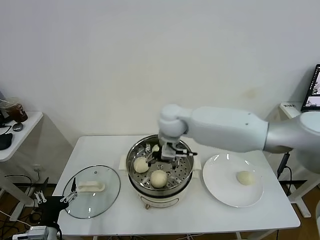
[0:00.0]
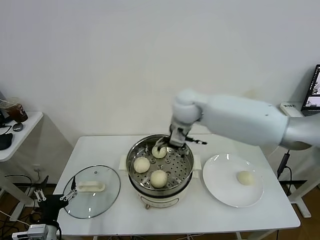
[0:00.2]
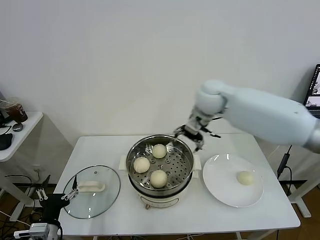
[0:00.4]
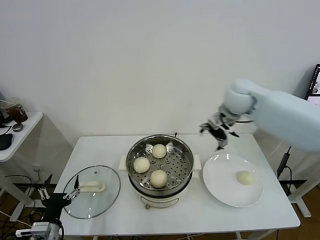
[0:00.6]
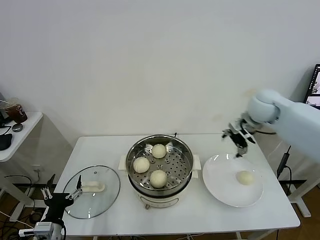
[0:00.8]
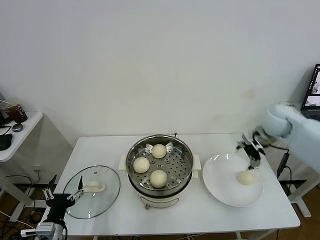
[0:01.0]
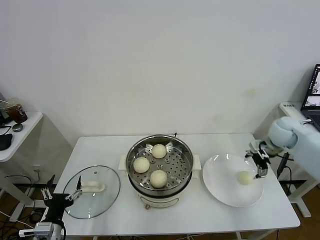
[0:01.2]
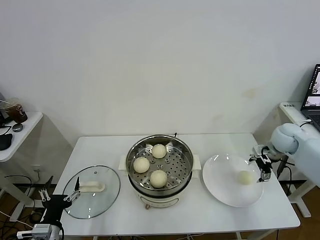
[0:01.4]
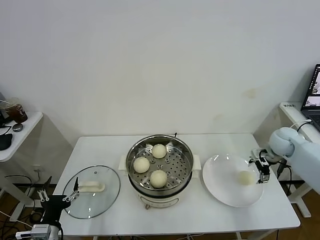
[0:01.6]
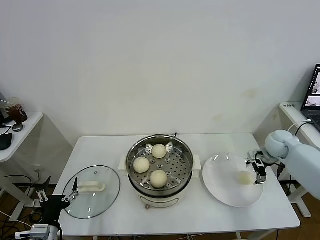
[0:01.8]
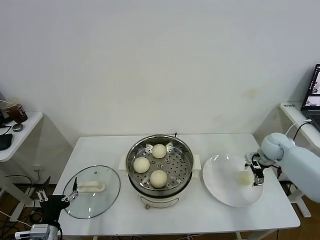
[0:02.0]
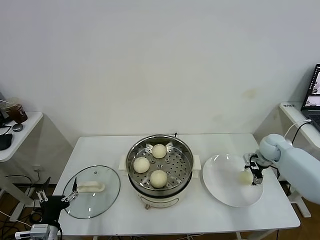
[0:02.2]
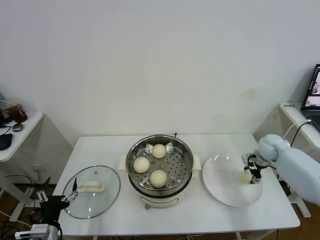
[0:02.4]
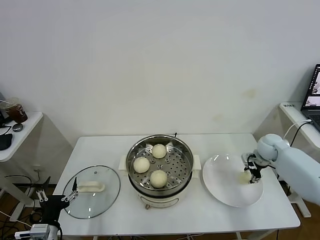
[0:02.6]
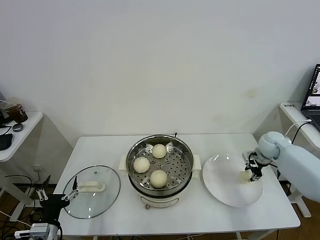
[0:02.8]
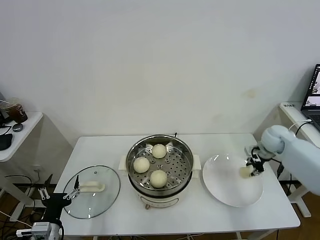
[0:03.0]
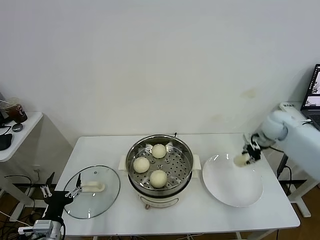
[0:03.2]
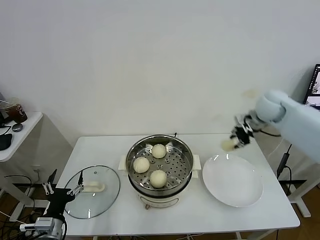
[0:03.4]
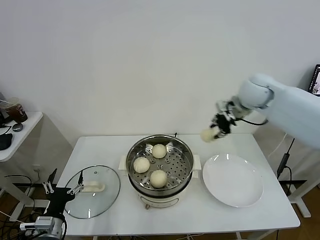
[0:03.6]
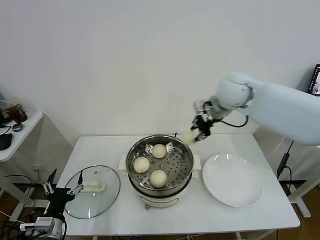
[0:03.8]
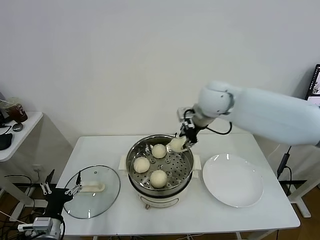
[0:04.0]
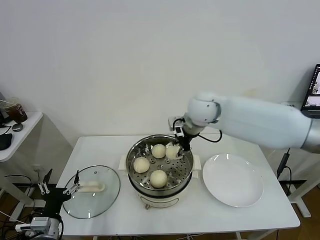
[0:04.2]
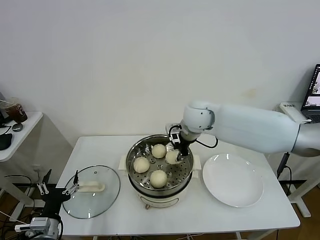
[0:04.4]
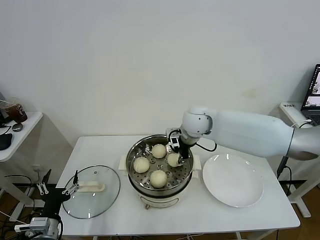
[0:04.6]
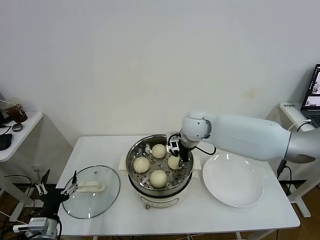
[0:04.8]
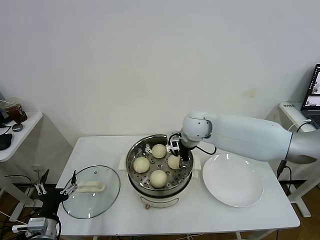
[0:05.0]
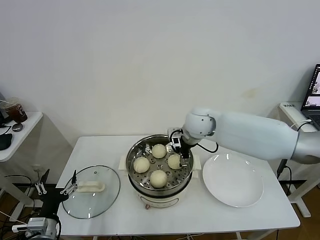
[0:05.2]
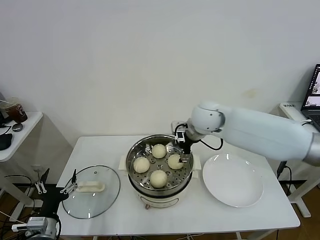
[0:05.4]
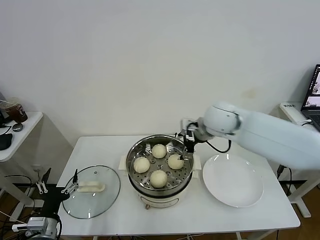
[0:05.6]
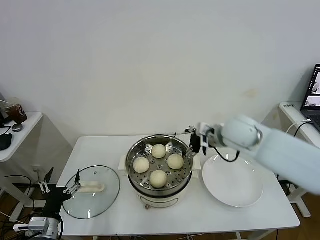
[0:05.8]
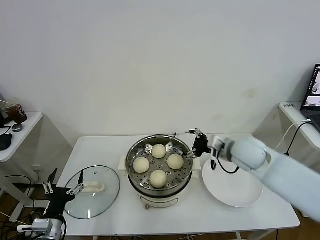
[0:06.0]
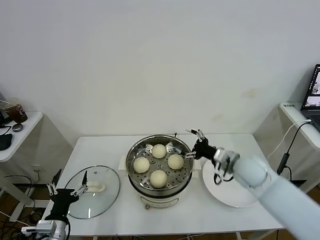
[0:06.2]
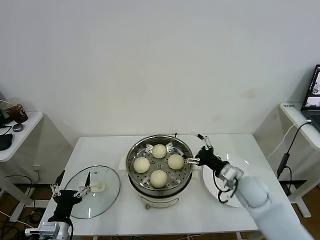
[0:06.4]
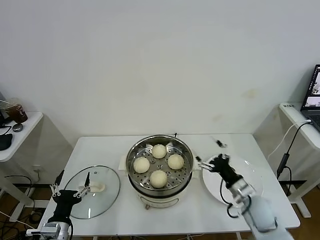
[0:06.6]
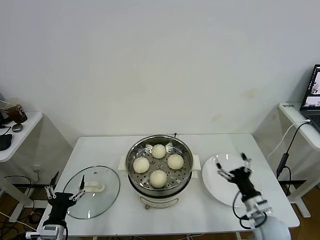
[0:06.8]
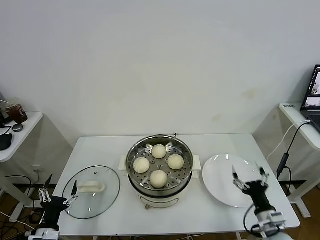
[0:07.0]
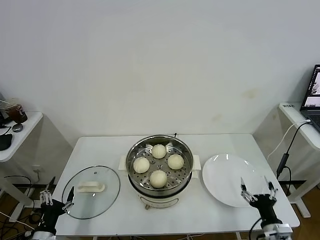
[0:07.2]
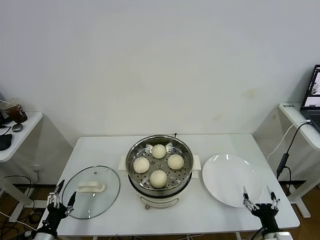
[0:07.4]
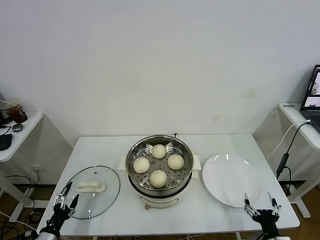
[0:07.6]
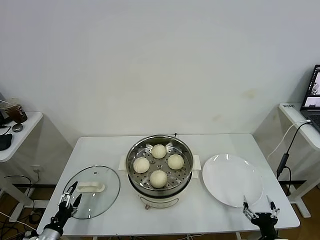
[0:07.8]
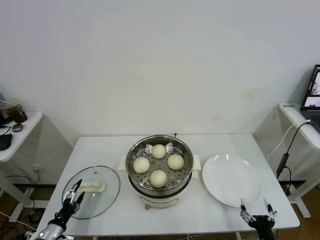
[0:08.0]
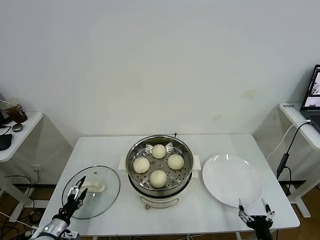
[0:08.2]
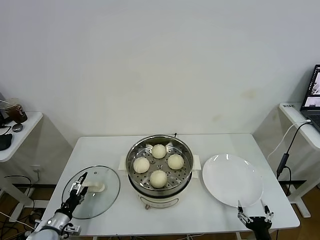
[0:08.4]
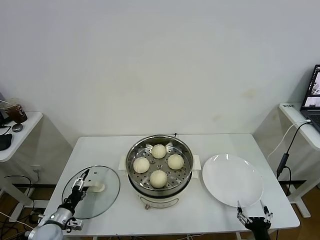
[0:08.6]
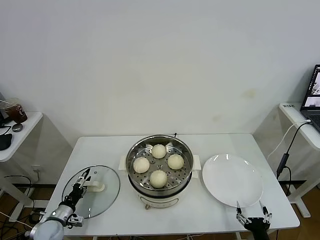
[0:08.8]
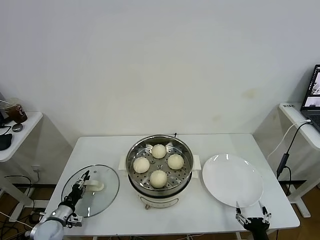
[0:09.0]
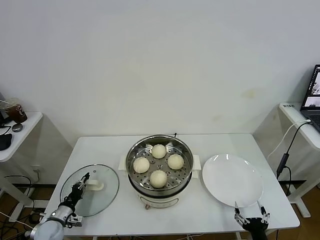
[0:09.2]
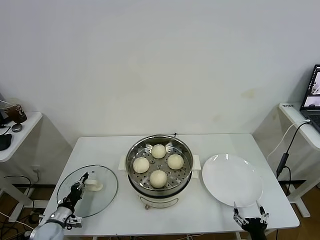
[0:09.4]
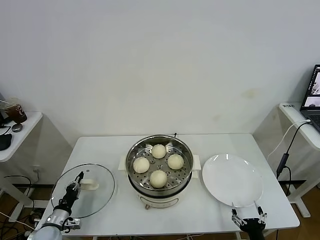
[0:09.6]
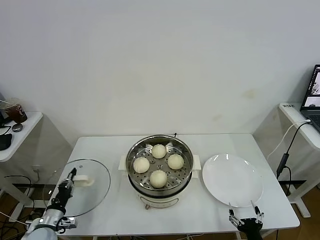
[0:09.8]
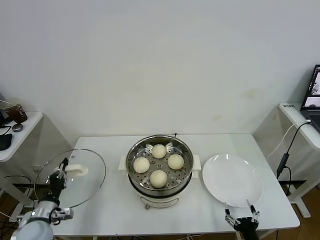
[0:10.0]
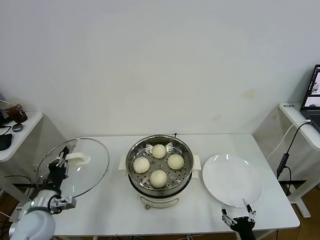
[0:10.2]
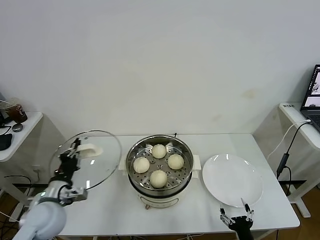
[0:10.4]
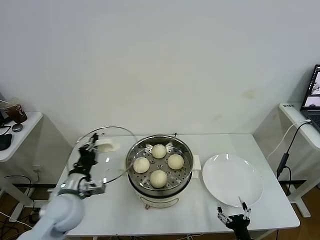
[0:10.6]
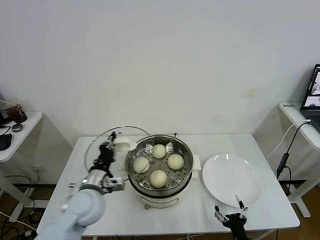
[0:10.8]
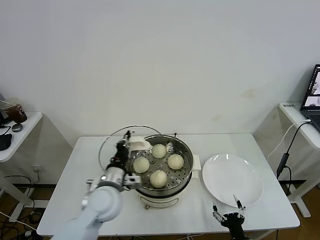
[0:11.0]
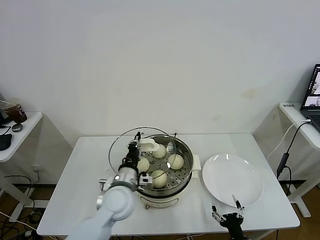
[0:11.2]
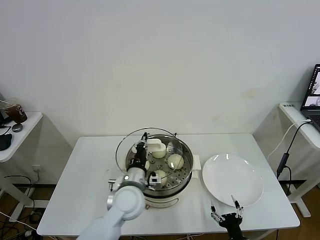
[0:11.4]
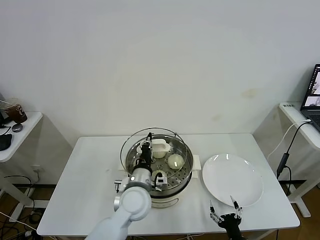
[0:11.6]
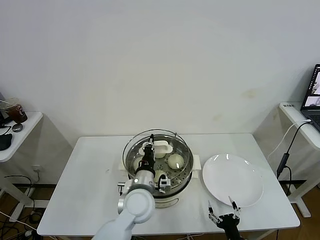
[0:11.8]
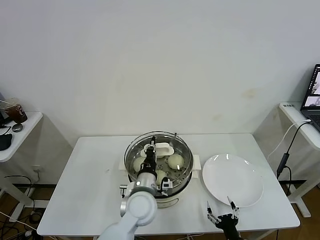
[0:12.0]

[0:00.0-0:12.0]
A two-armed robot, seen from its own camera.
Task of the whole recording: take steamed baozi put them in steamer.
Step, 0:00.2 to 0:02.6: Grasp the baozi in the plate with right gripper.
Step, 0:02.8 to 0:05.4: Place the baozi on the steamer with right gripper.
Step, 0:05.6 to 0:09.4: Grasp the pot lid with left gripper.
0:00.0 to 0:01.6: The right gripper goes about 40 cm to the right.
0:01.6 to 0:03.0: The right gripper closes its fingers.
0:03.0 to 0:04.4: The right gripper is displaced to the left and upward by approximately 35 cm.
0:04.4 to 0:06.0: The right gripper travels to the right, backward and downward by roughly 15 cm, and opens up.
0:06.0 to 0:07.6: The right gripper shifts about 35 cm backward and downward, while the left gripper travels downward and to the left by approximately 10 cm.
0:07.6 to 0:09.0: The left gripper heads forward, covering about 10 cm, and closes its fingers.
0:09.0 to 0:10.4: The left gripper moves upward and to the right, about 20 cm, and closes.
0:10.4 to 0:12.0: The left gripper shifts approximately 25 cm to the right.

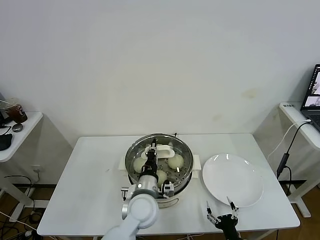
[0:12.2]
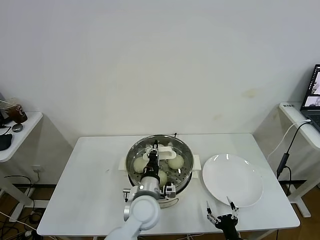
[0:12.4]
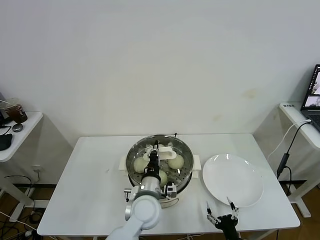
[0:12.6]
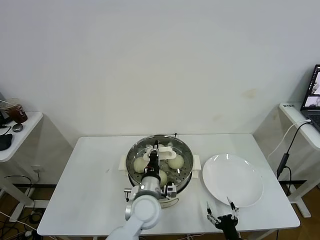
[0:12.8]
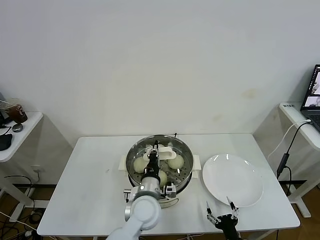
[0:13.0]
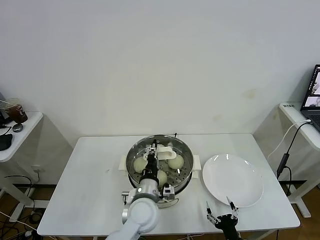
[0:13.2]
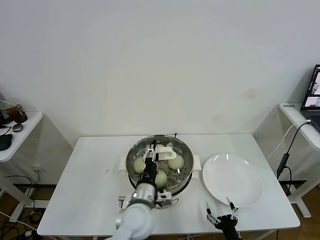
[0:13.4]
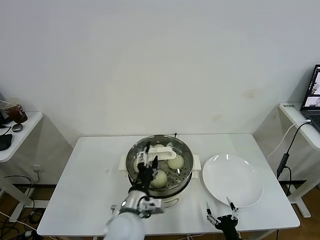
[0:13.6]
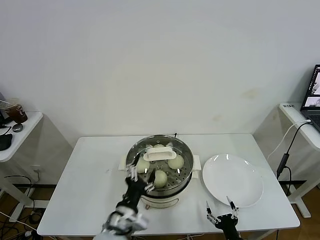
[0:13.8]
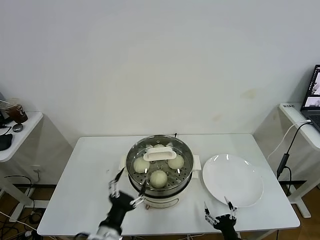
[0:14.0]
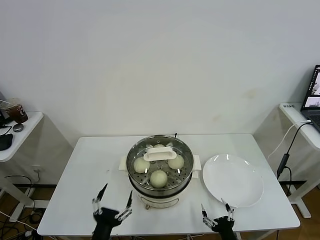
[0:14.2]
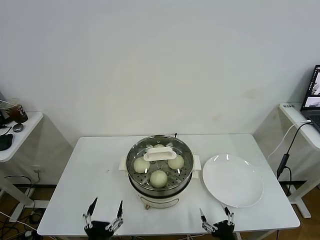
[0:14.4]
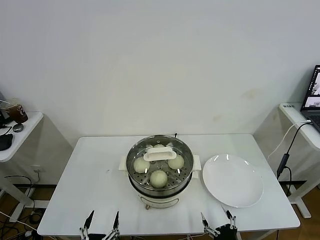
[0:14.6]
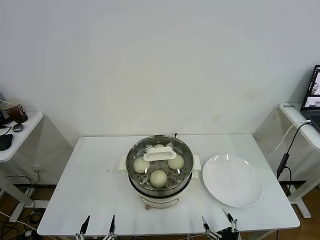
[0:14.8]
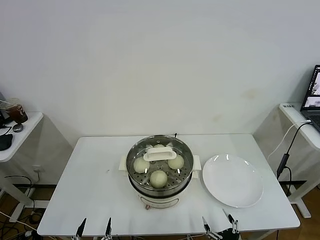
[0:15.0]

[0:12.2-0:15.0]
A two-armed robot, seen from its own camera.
Task of the whole recording: take steamed baozi put them in steamer.
0:12.2 to 0:13.6: The left gripper goes about 5 cm backward, and opens its fingers.
0:13.6 to 0:15.0: The left gripper shifts about 30 cm backward, to the left and downward. The right gripper changes place by roughly 5 cm.

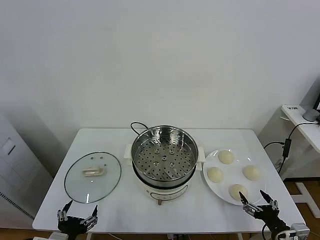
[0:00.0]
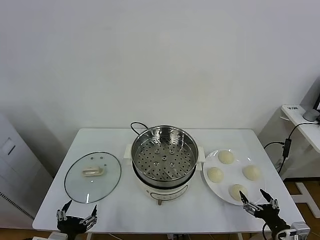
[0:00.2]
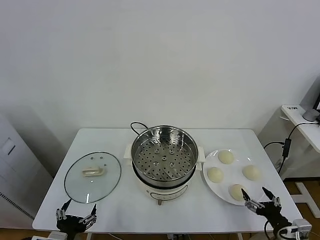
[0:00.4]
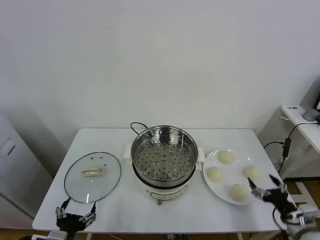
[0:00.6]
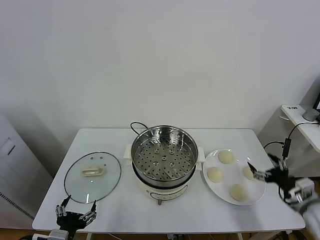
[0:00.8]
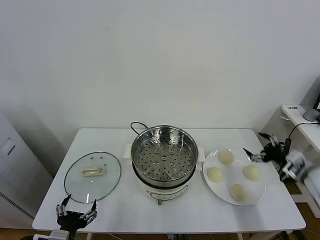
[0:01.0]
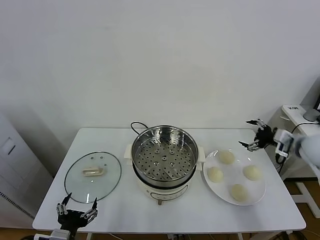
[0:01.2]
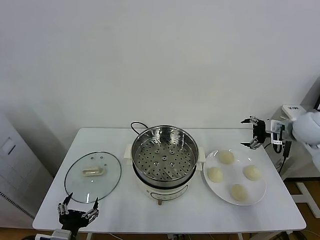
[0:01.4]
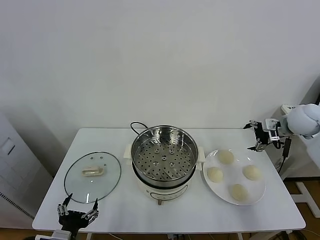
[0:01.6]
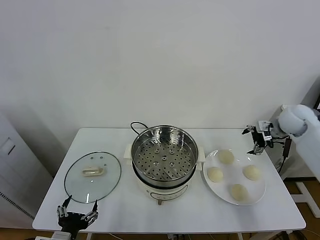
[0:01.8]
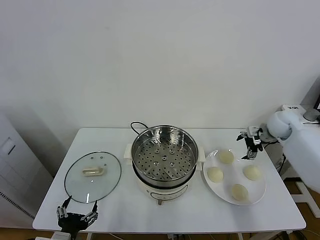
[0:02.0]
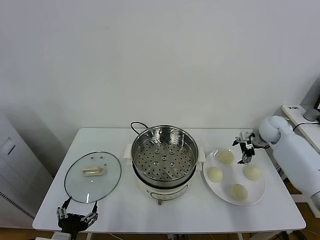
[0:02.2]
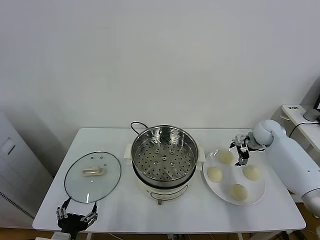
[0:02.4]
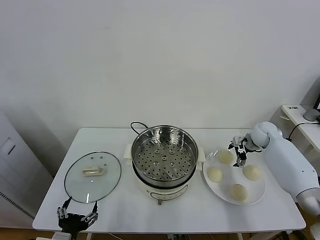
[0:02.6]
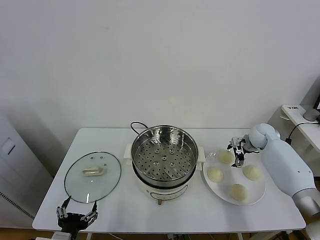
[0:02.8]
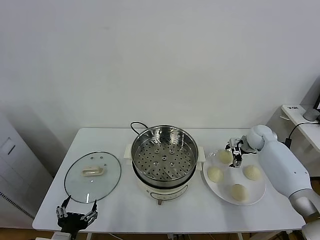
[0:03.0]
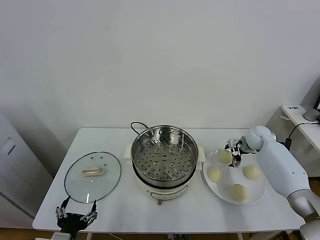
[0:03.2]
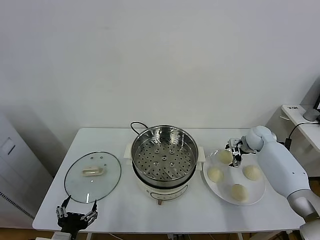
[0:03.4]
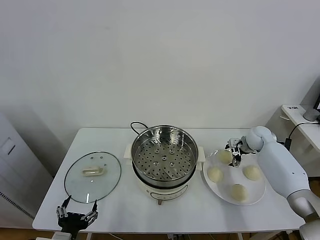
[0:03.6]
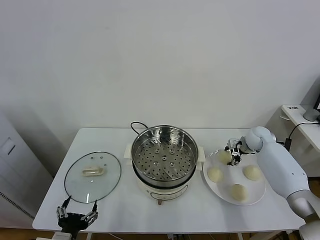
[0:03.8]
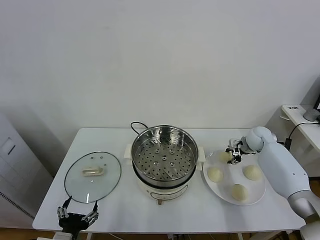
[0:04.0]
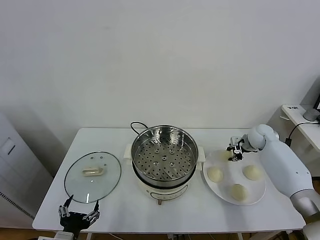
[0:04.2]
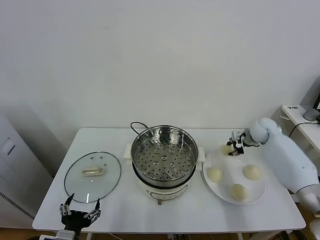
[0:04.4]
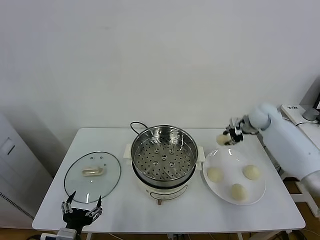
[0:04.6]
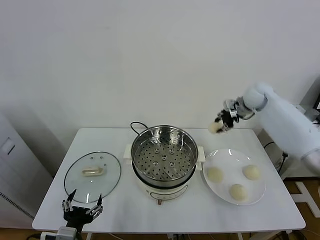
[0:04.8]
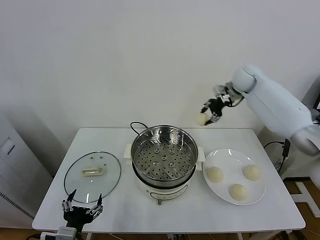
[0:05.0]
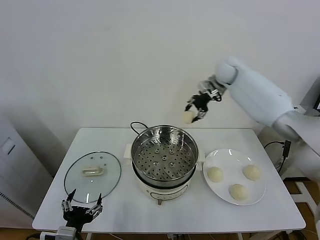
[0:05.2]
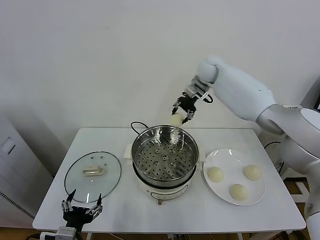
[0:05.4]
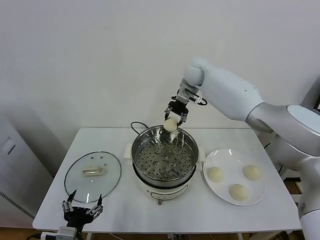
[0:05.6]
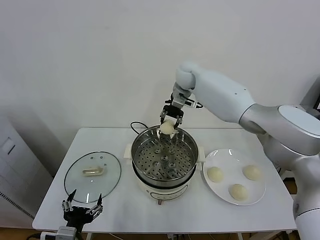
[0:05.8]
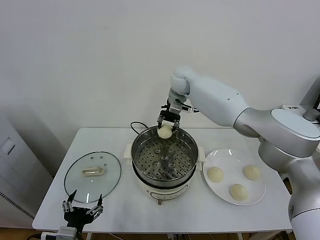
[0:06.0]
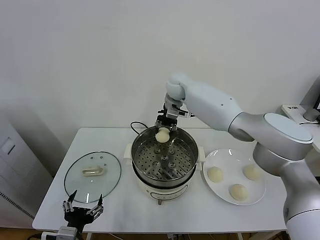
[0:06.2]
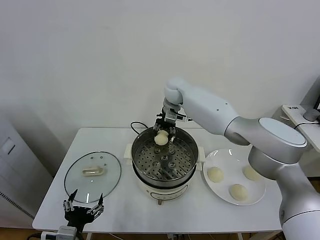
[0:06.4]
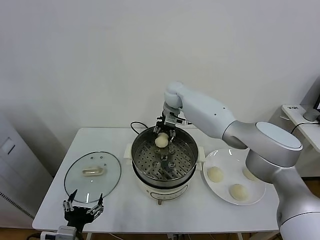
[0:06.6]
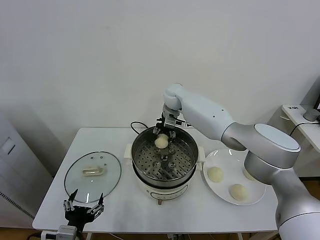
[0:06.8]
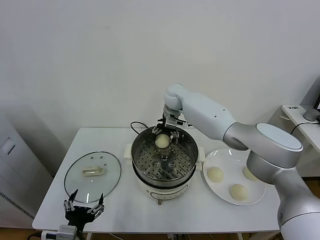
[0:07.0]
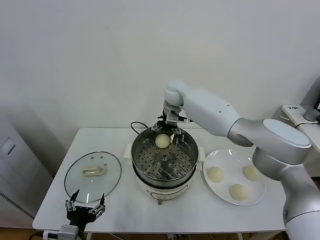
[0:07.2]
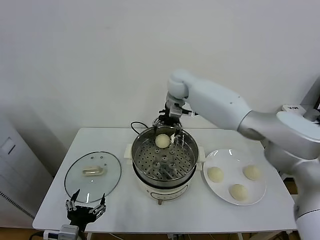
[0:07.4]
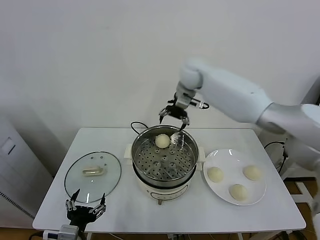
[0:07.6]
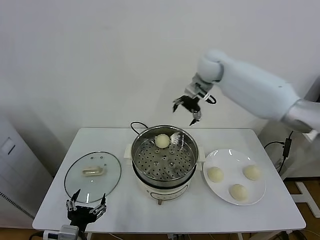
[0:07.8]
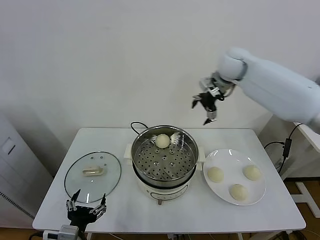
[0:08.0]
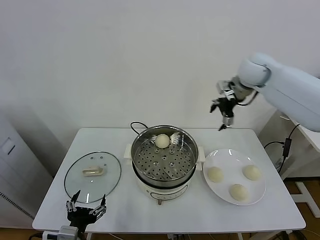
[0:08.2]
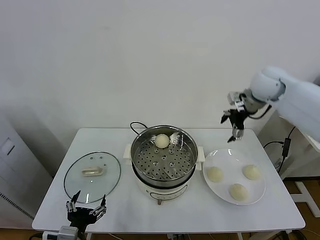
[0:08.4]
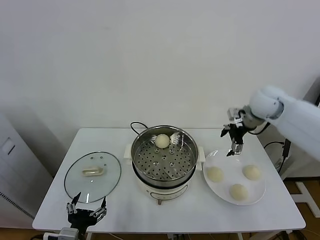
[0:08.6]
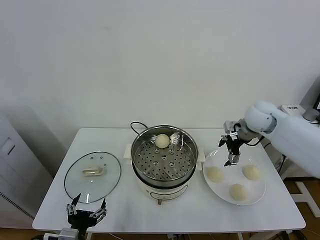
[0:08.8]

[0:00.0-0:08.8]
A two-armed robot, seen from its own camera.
Task of the whole recording: take steamed baozi put them in steamer.
Step, 0:00.0 to 0:04.0: Grasp the baozi in the plate with right gripper.
Step, 0:04.2 to 0:07.2: Place the baozi on the steamer with right gripper.
0:01.4 to 0:03.0: The right gripper goes about 20 cm downward and forward.
0:03.0 to 0:04.4: The right gripper is displaced upward by roughly 10 cm, and closes its fingers.
0:04.4 to 0:05.8: The right gripper goes about 35 cm to the left and upward.
0:05.8 to 0:07.4: The right gripper goes downward and returns, roughly 10 cm each way, and opens up.
0:07.4 to 0:08.8: The right gripper goes approximately 30 cm to the right, backward and downward.
